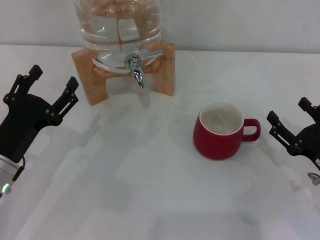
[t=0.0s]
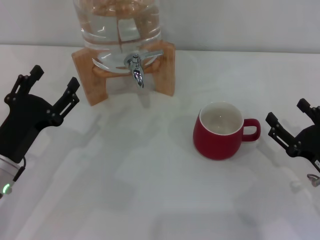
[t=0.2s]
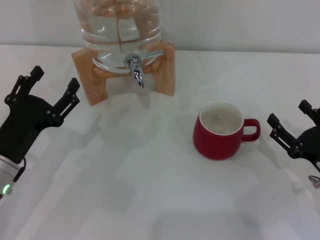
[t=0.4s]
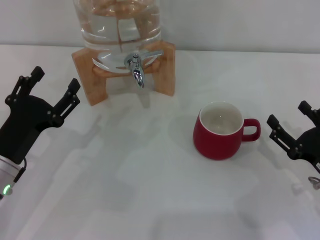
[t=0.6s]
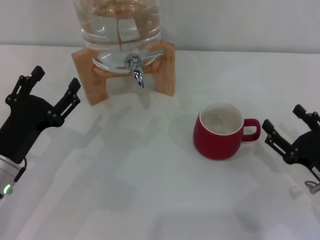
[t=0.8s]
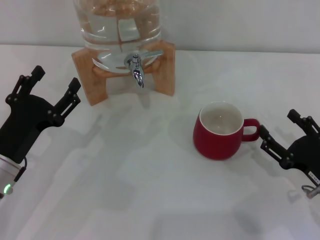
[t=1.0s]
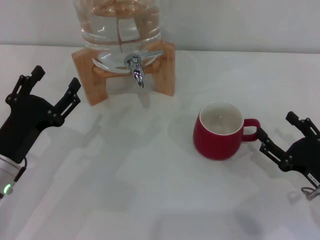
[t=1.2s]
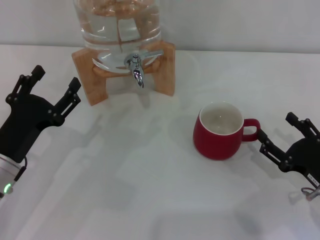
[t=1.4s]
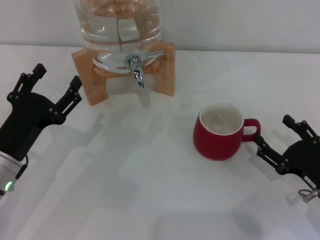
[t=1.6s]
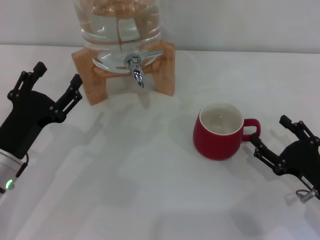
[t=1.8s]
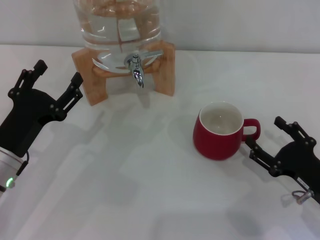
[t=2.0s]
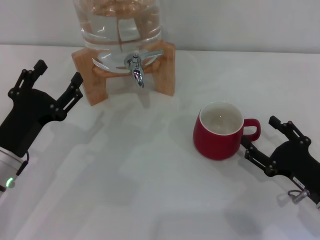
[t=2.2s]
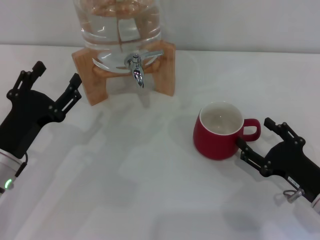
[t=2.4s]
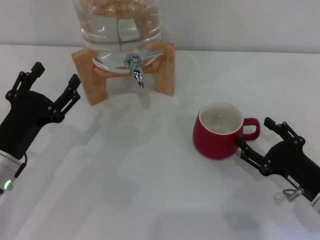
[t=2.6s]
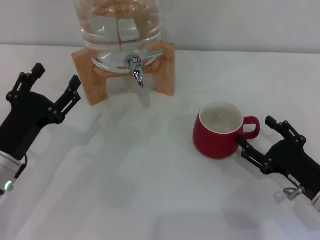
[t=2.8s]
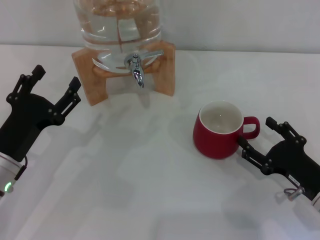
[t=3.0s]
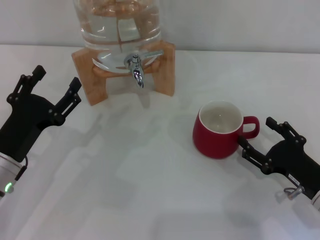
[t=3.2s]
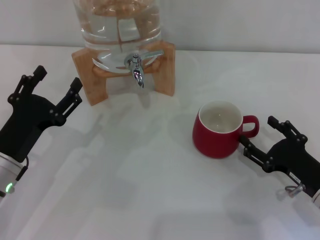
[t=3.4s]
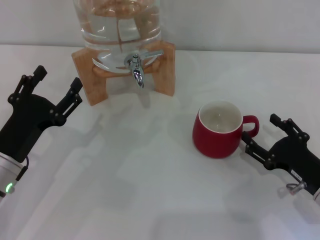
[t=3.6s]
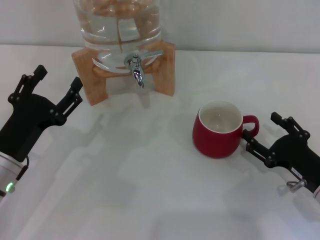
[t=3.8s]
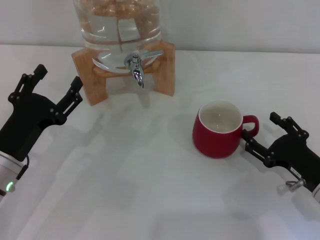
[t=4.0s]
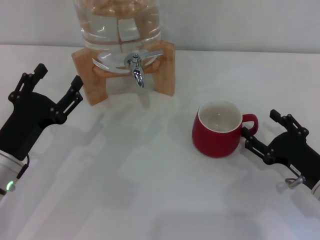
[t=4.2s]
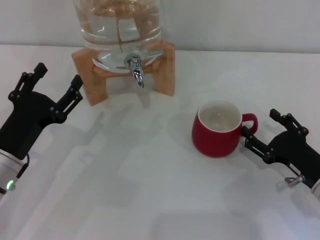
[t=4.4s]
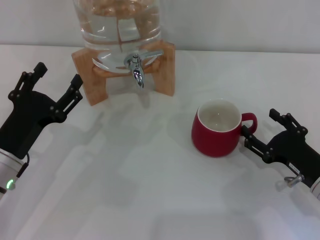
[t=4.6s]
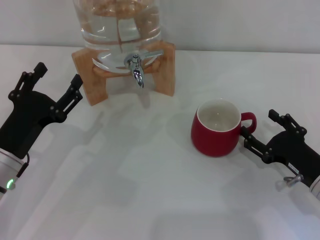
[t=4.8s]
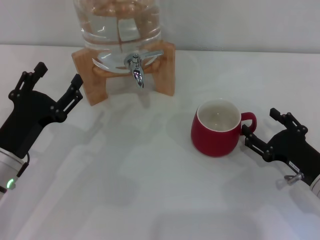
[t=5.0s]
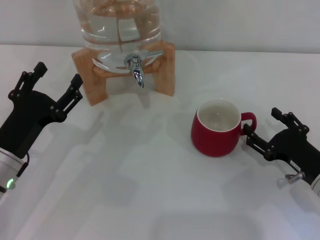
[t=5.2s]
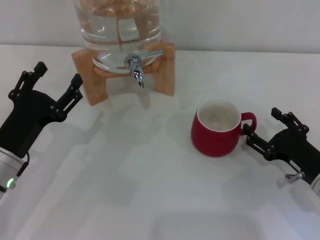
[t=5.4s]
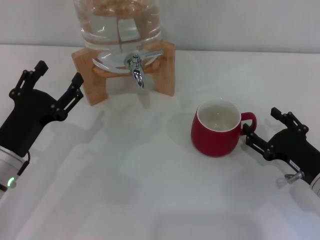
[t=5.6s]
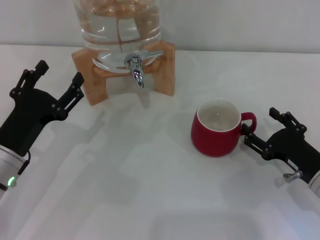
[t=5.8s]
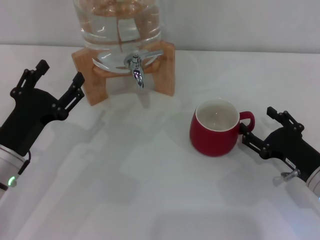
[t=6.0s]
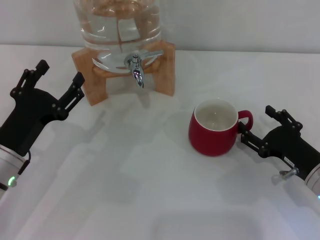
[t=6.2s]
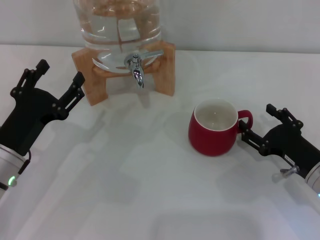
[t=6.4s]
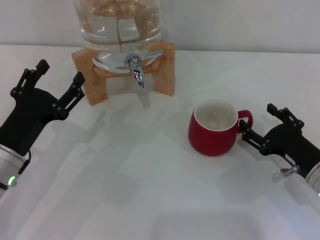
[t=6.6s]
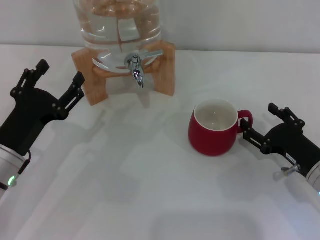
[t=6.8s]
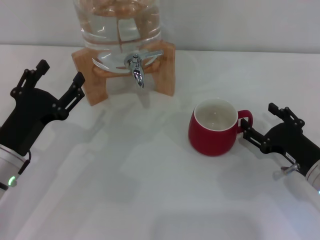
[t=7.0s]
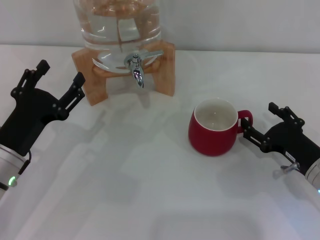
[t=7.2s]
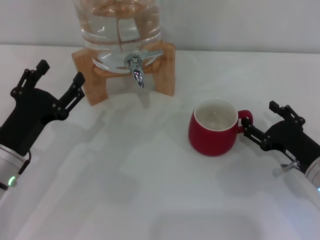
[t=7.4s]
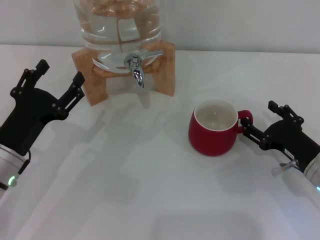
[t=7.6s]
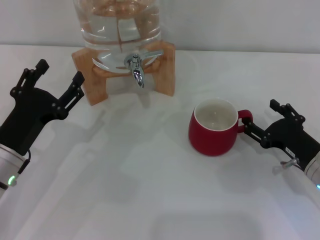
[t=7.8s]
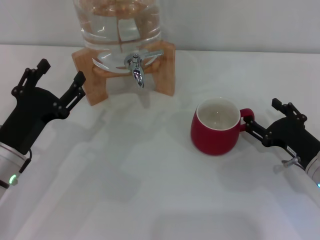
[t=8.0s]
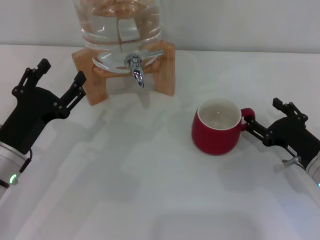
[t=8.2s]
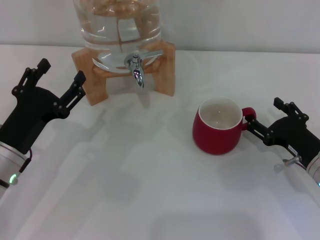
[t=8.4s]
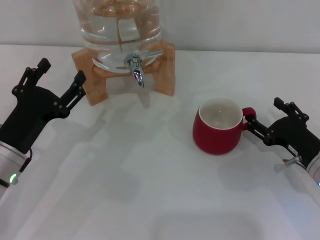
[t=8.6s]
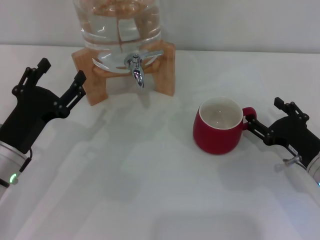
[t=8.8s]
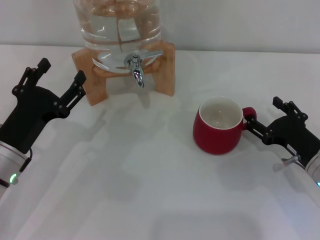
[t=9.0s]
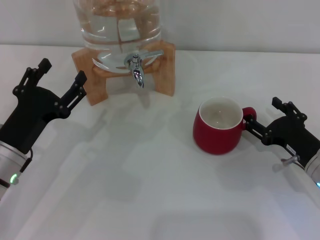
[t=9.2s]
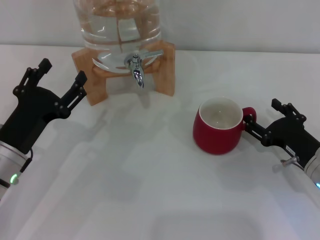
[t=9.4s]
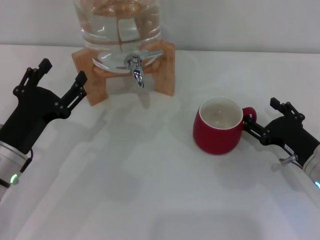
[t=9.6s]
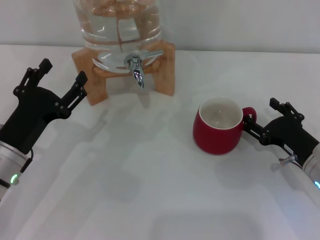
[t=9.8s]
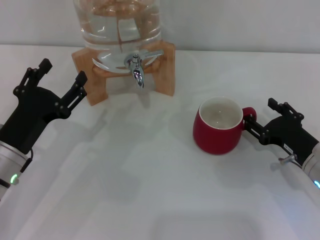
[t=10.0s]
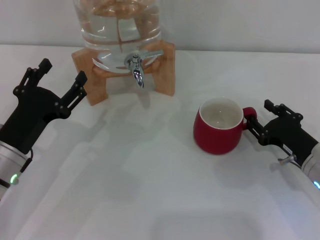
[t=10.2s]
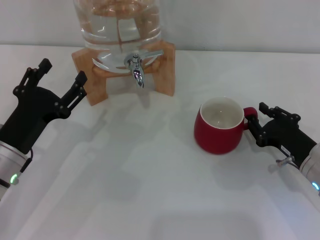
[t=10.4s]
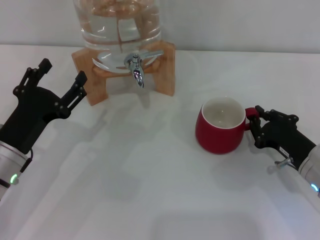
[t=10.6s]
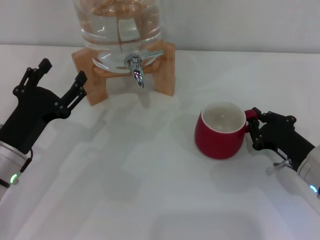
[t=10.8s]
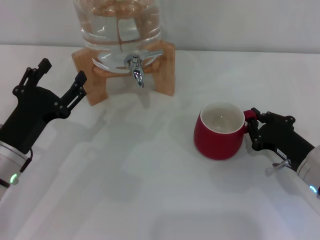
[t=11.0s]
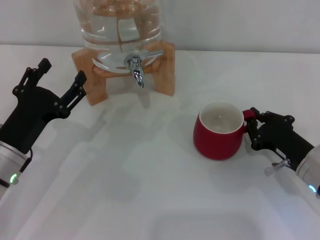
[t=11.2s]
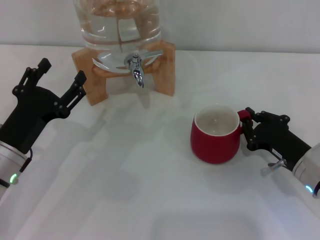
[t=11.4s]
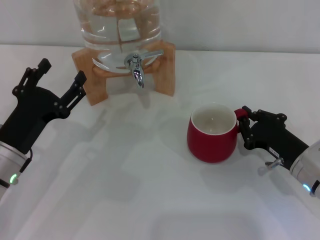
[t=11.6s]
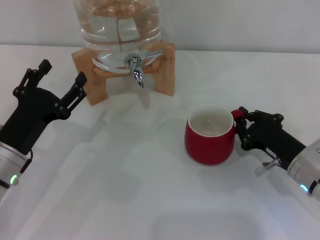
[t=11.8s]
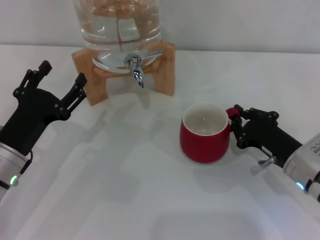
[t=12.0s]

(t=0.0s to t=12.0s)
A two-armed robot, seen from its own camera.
Task of the whole recording: the right gripper pick up the red cup and place it horizontally under the faucet, the left gripper turn on the faucet to fill the cup, and then turn off the faucet.
t=0.0s - t=4.4s: The grippers stay close to where they were, moving slightly.
t=4.4s - t=6.0s: Neither gripper changes place.
t=6.0s - t=7.6s: The grippers stay close to where they were, moving slightly.
t=7.6s - t=10.4s: Neither gripper changes place.
t=10.4s - t=12.0s: The right gripper closes.

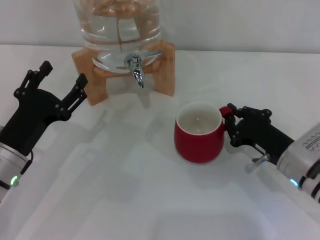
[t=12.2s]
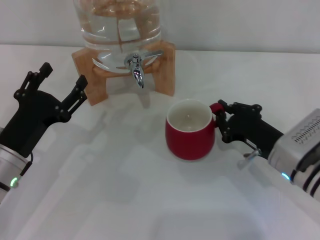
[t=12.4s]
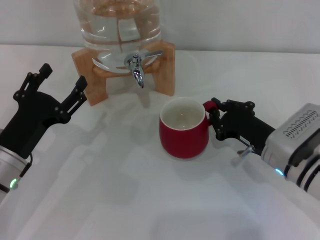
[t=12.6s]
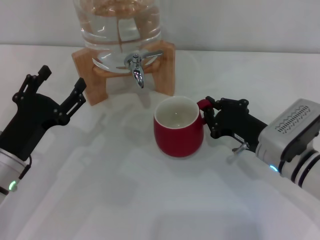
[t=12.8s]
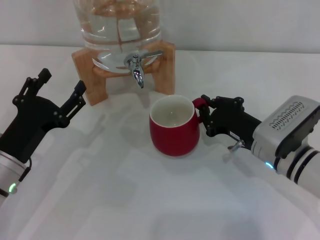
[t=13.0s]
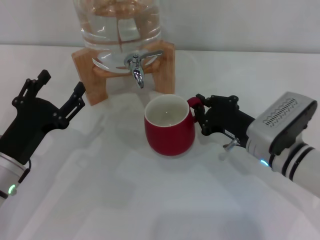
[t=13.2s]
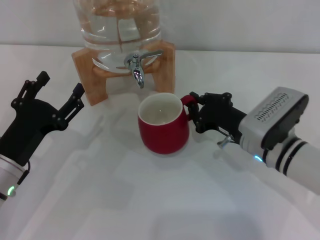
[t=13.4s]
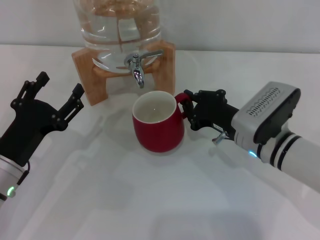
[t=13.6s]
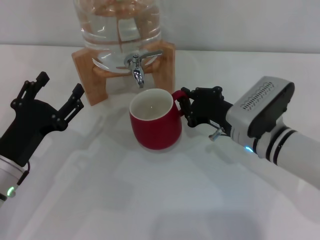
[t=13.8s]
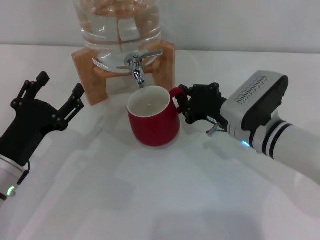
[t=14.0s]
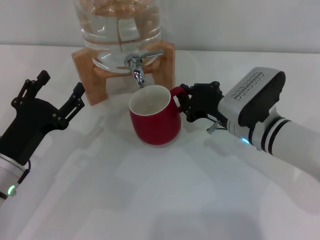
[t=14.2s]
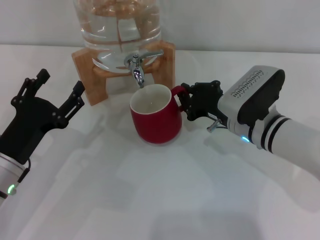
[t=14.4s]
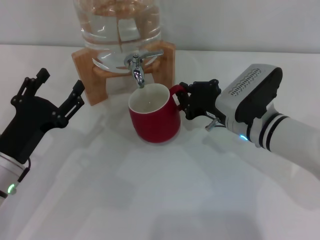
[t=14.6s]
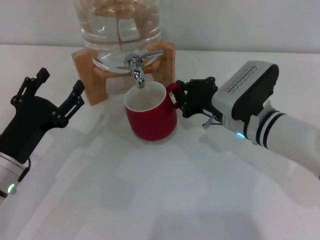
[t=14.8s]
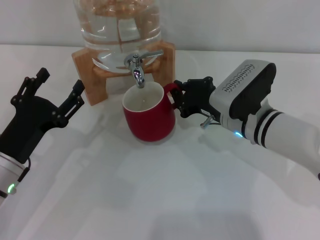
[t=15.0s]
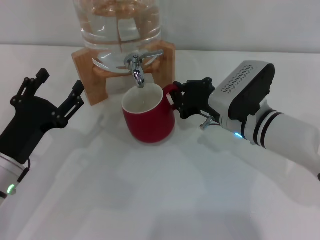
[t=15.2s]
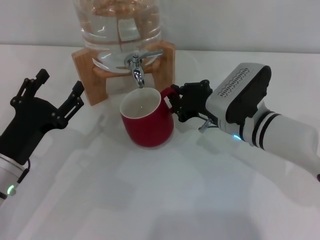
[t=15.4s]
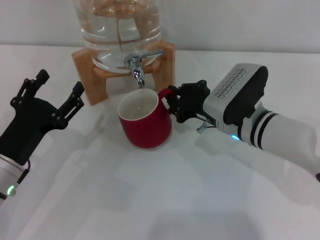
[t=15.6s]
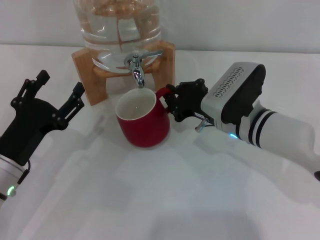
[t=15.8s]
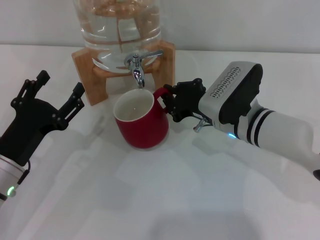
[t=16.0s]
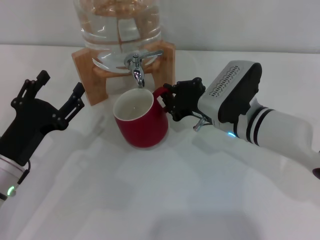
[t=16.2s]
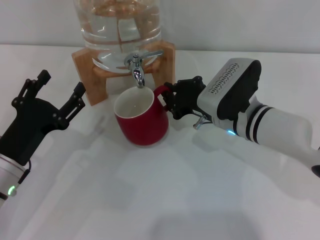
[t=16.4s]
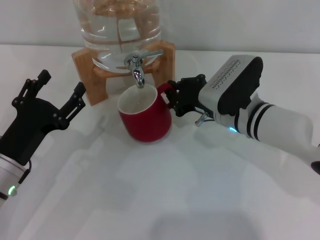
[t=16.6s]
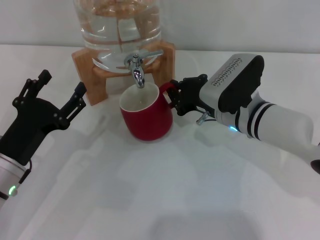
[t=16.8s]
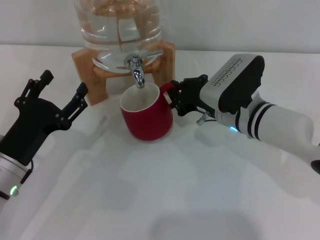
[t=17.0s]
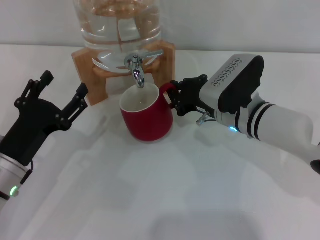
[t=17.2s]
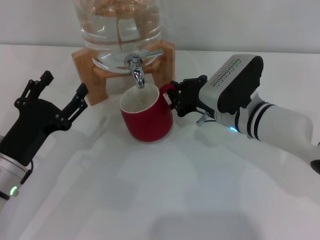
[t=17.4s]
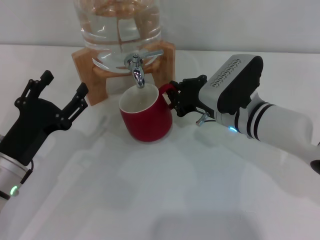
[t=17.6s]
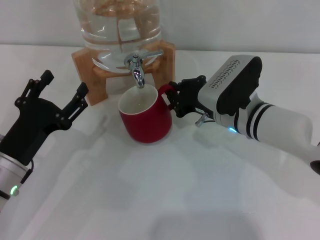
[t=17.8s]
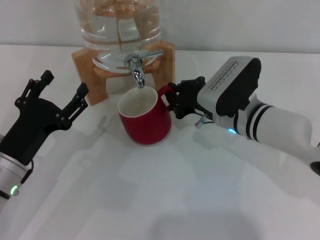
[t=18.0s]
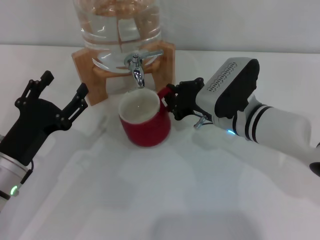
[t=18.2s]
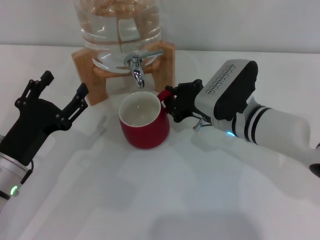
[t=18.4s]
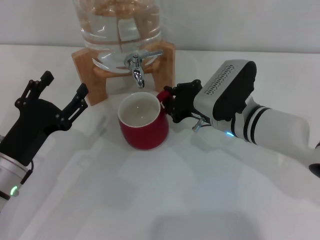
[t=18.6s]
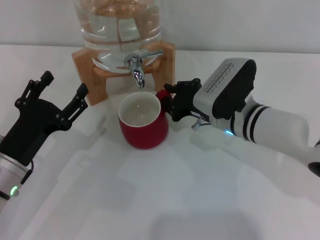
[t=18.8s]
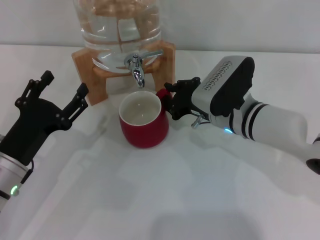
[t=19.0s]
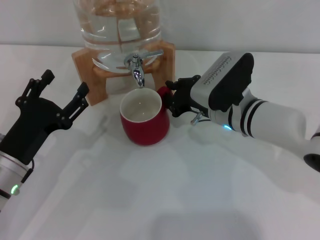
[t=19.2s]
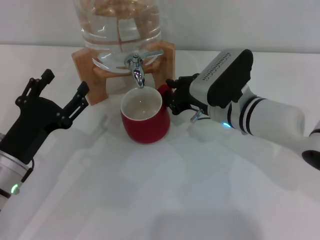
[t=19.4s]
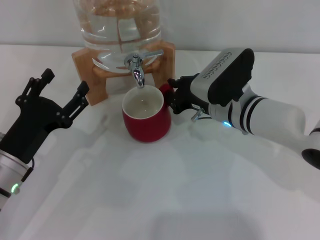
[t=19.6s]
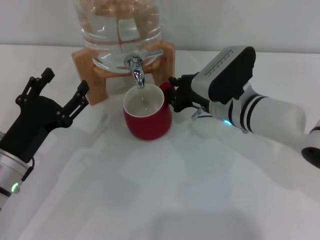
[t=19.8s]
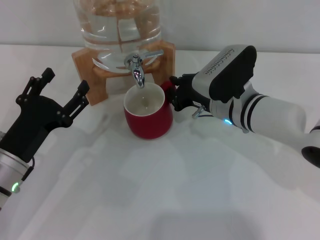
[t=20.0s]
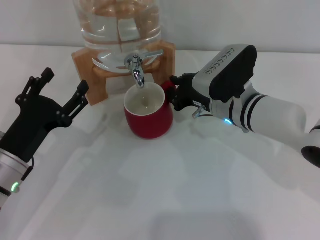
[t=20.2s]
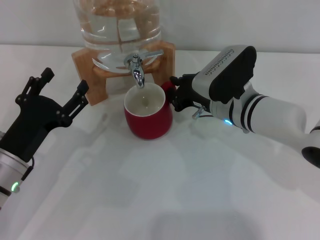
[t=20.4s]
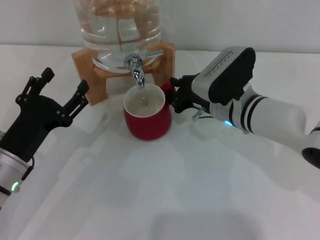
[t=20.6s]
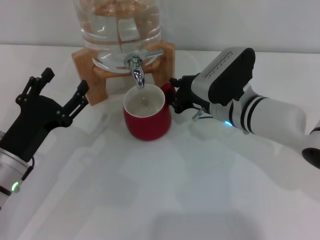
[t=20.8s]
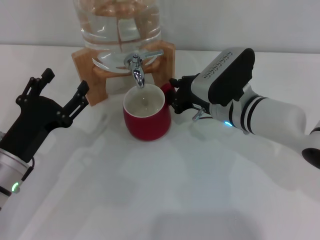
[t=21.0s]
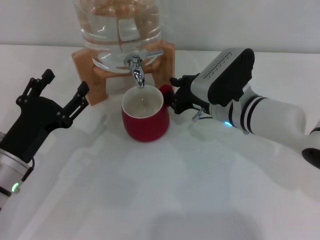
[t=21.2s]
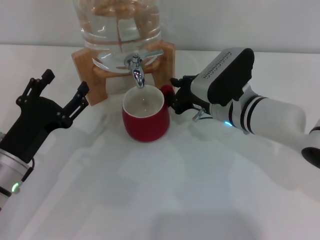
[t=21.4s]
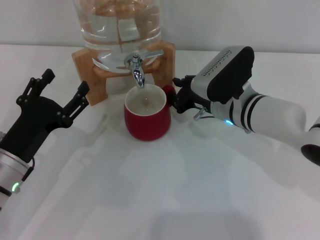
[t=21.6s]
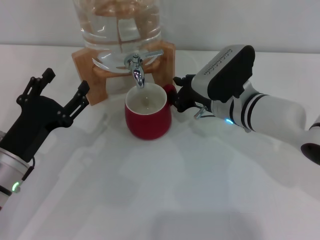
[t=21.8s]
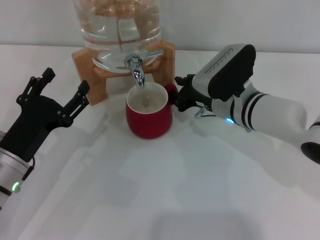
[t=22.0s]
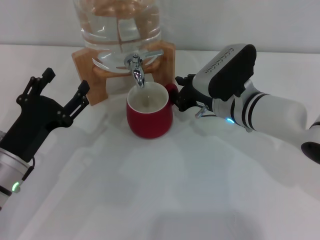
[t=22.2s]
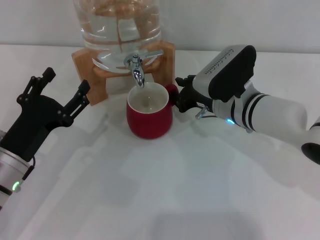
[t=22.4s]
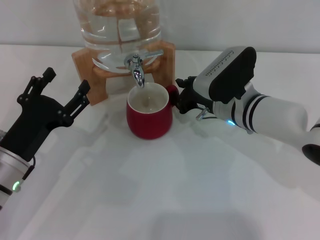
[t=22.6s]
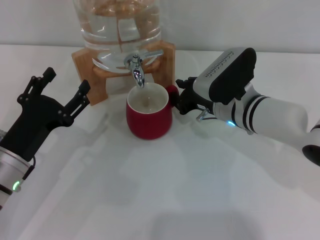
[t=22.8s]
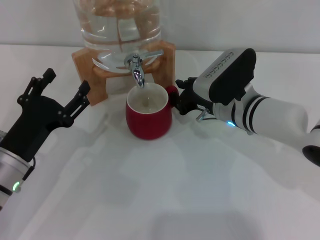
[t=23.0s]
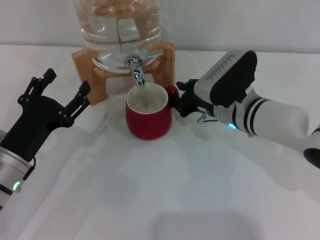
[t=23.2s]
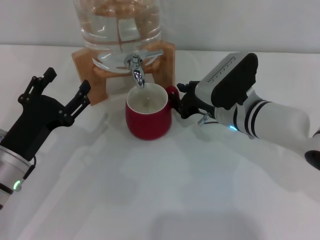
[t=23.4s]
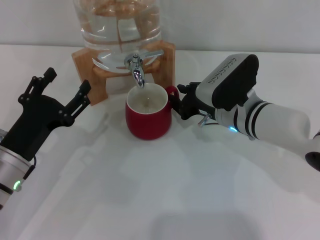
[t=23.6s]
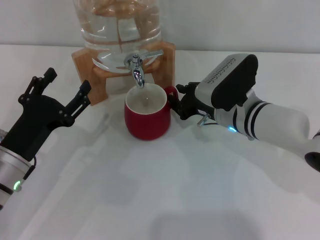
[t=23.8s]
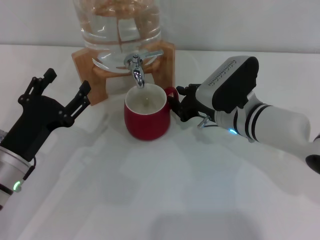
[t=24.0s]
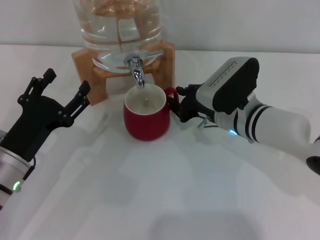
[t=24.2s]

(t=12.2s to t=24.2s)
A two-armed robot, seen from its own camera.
Task of the whole recording: the right gripper pick up the red cup and place it horizontally under the faucet, the left gripper turn on the faucet to fill the cup, and then turn off the faucet.
t=12.2s - t=13.8s: The right gripper travels to the left by approximately 5 cm.
t=13.8s - t=16.6s: The grippers move only a little.
t=16.6s - t=18.2s: Both grippers stay about where they are.
t=18.2s - t=19.8s: The grippers move only a little.
t=19.8s - t=22.6s: Neither gripper changes place.
t=22.6s - t=24.2s: The grippers stay close to where they were, moving slightly.
